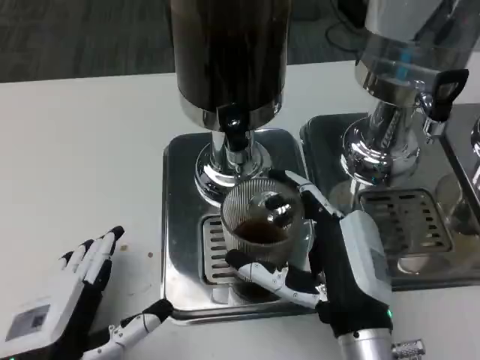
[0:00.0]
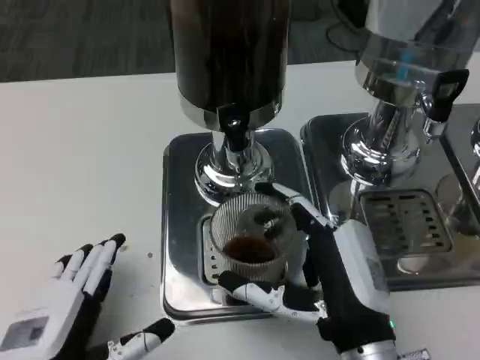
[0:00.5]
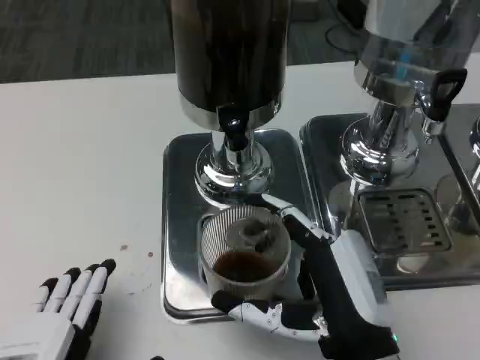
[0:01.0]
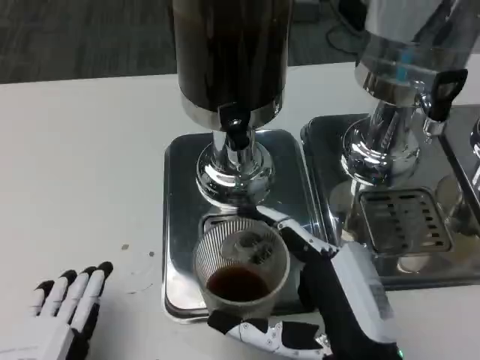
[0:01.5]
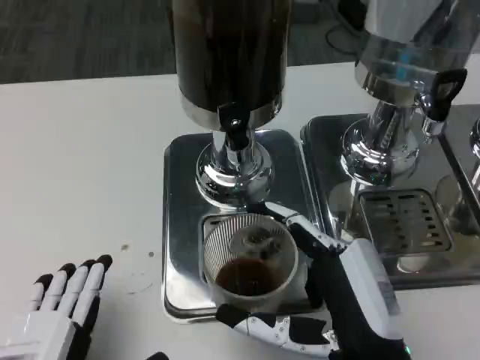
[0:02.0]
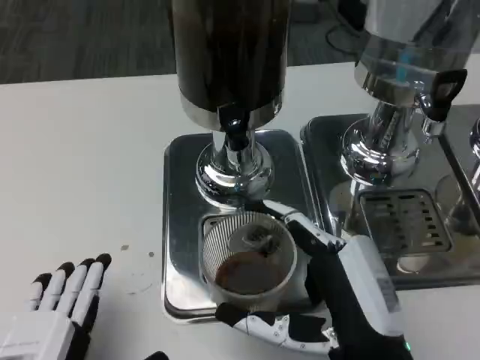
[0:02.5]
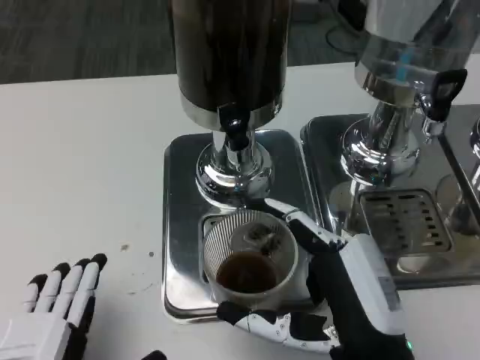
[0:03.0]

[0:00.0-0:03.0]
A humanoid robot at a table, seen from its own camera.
Task of the whole recording: Grasp the cup under the faucet to collect the drink, then remove the cup.
0:00.0 to 0:01.5: The left hand is displaced backward by roughly 5 cm.
0:01.5 to 0:03.0: Both hands stay about where they are.

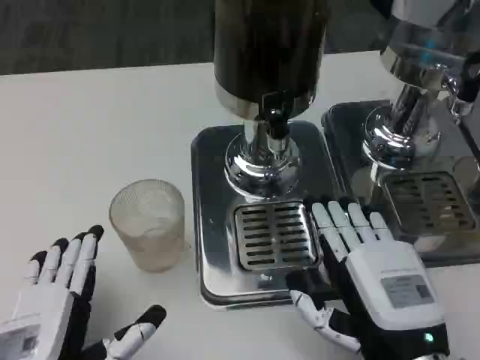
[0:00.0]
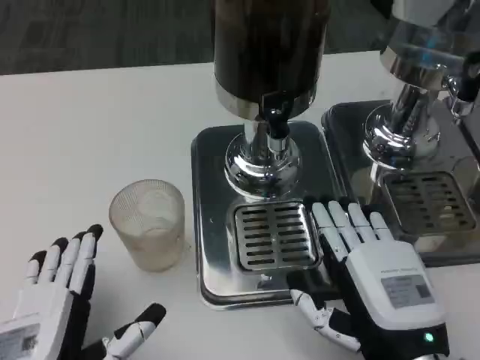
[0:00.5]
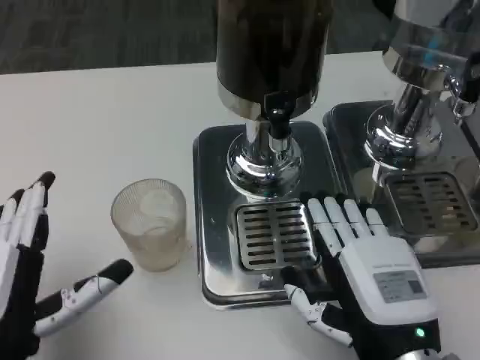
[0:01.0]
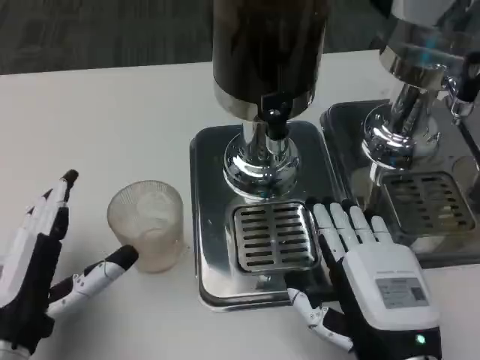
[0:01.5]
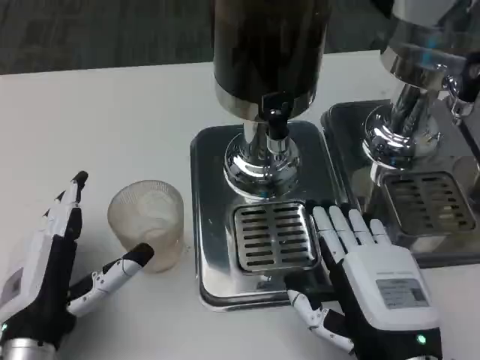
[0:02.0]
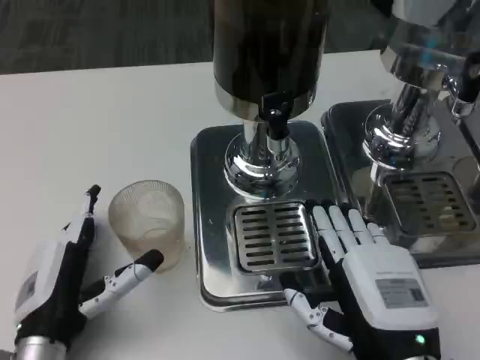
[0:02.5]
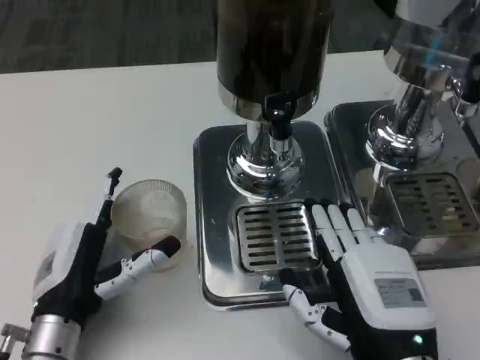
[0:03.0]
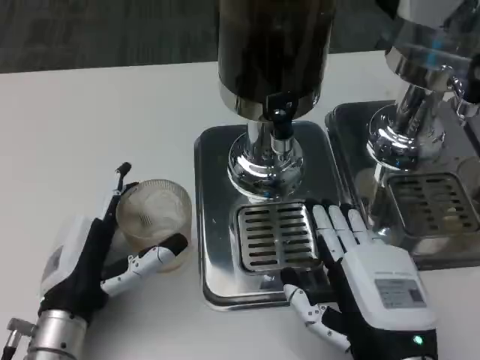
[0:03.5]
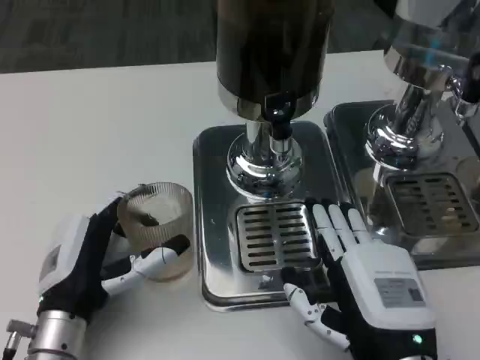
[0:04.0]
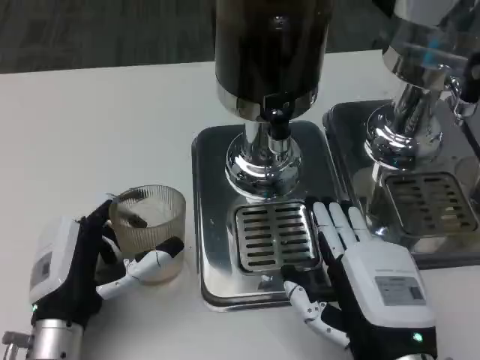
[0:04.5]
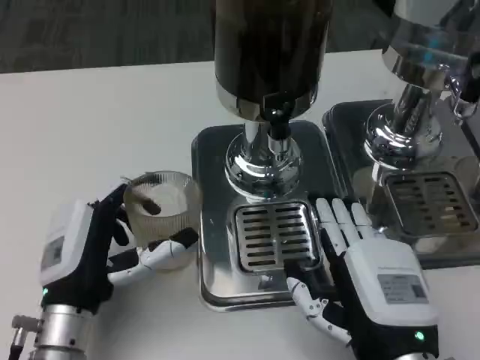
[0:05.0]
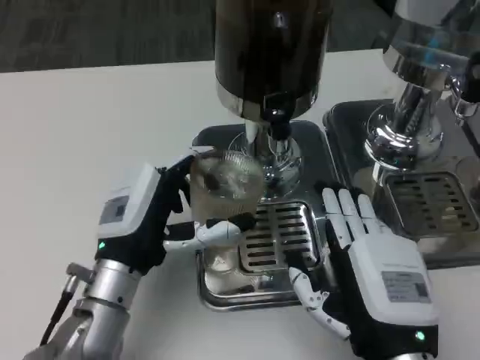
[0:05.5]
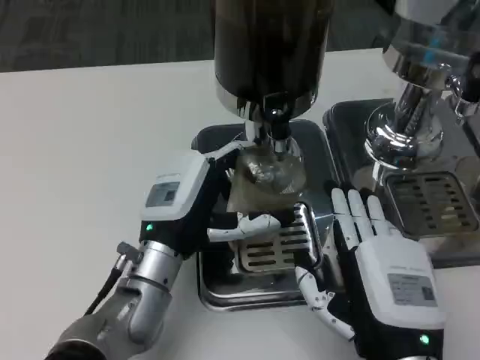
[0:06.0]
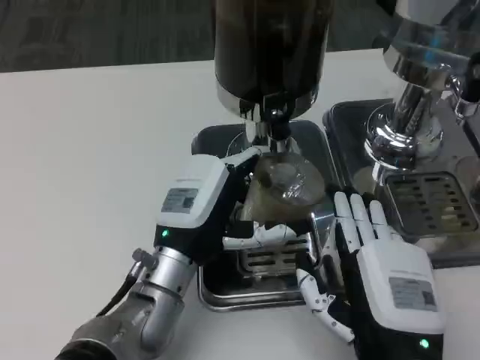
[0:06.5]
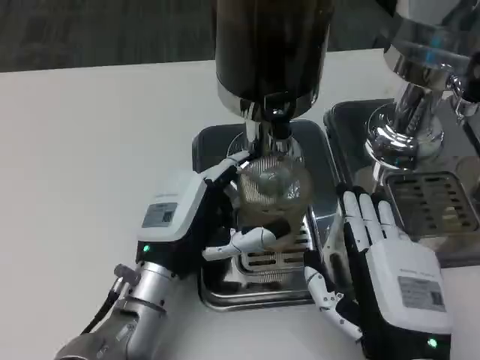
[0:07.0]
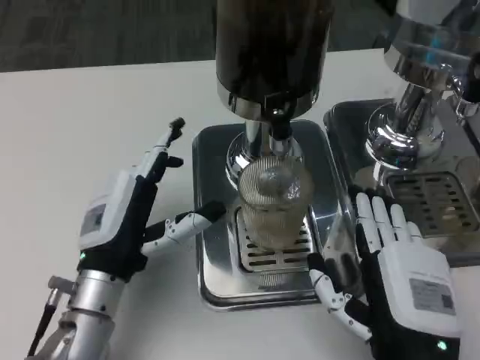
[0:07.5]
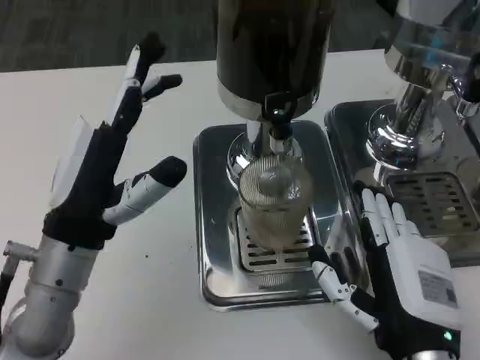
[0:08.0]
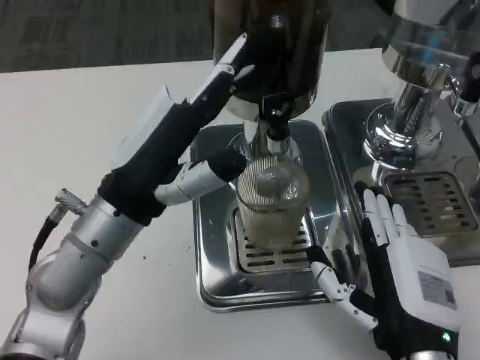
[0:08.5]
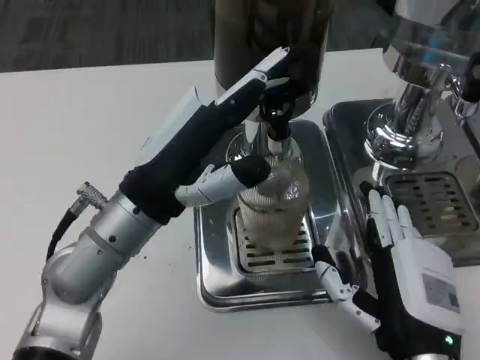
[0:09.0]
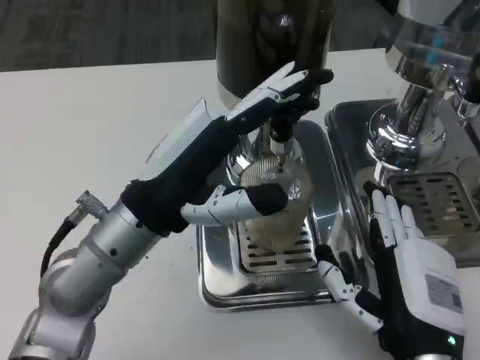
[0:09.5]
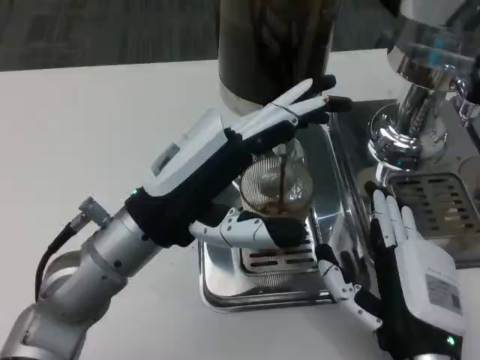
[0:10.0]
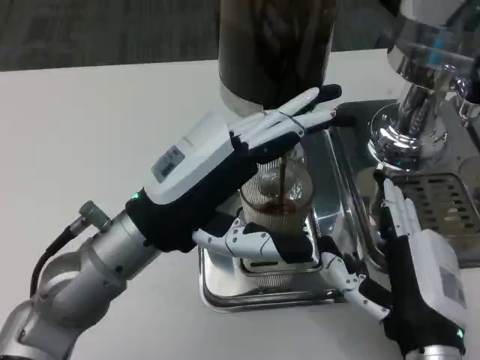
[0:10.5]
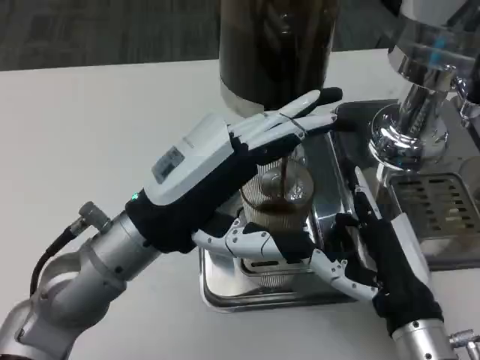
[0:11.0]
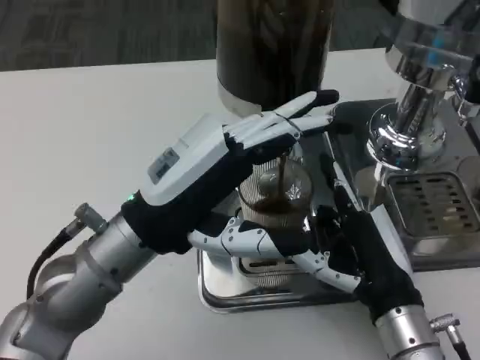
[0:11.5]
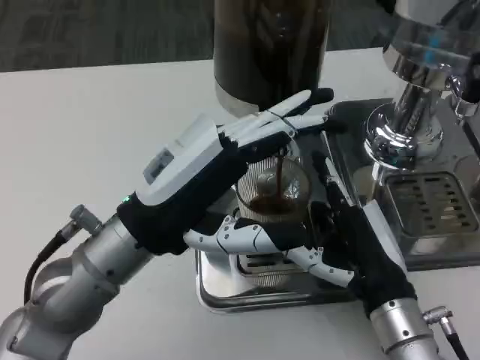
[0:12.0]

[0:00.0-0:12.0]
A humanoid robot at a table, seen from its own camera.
Task of the whole recording: Grasp the cup under the faucet to collect the drink, then remove the cup.
0:00.0 to 0:02.0: The left hand shifts approximately 5 cm forward.
0:04.0 to 0:06.0: The left hand moves to the right and forward, about 10 cm.
0:06.0 to 0:08.0: The left hand heads to the left and upward, covering some 10 cm.
0:10.0 to 0:12.0: The right hand heads forward, covering some 5 cm.

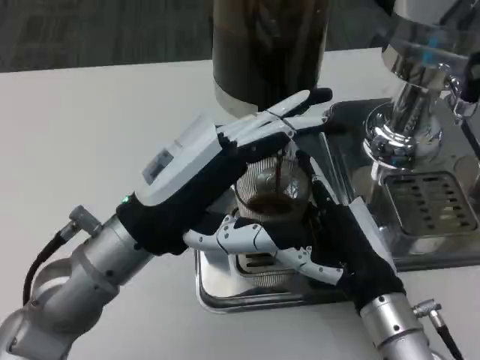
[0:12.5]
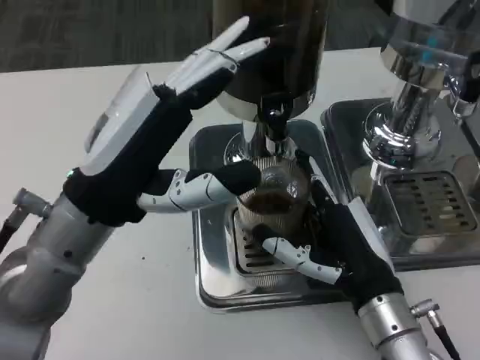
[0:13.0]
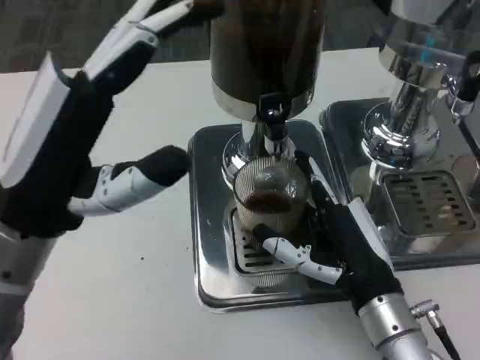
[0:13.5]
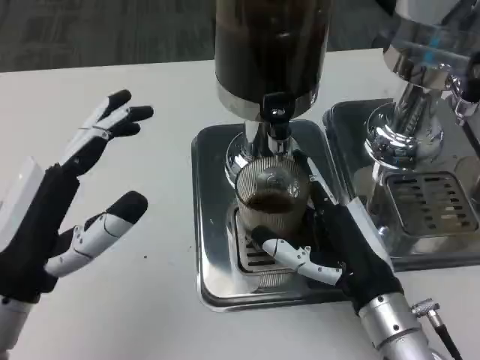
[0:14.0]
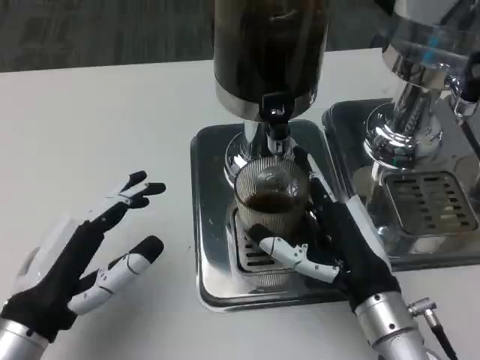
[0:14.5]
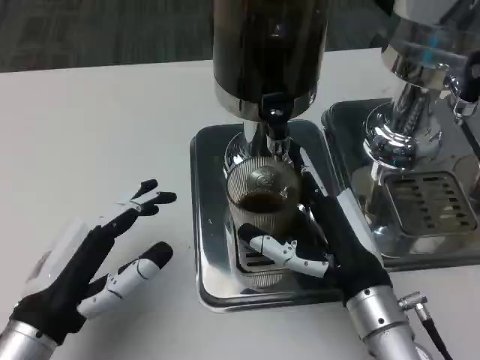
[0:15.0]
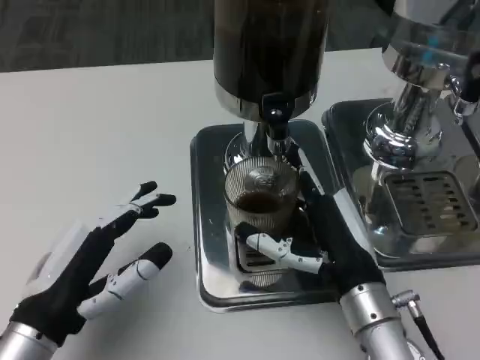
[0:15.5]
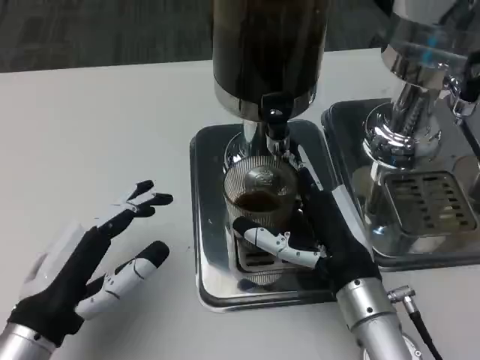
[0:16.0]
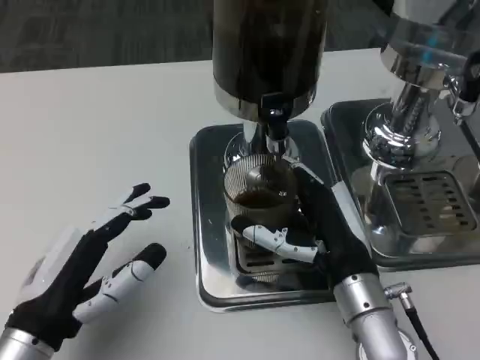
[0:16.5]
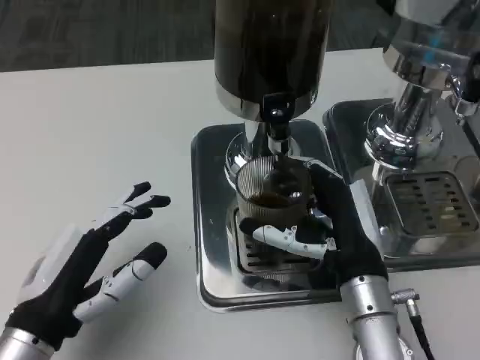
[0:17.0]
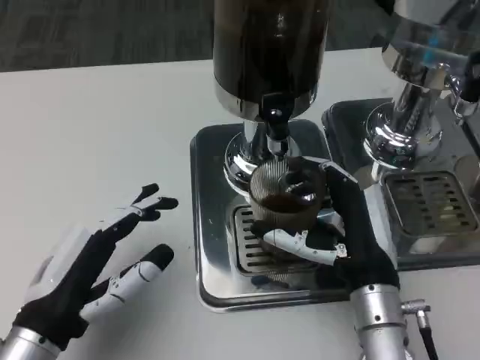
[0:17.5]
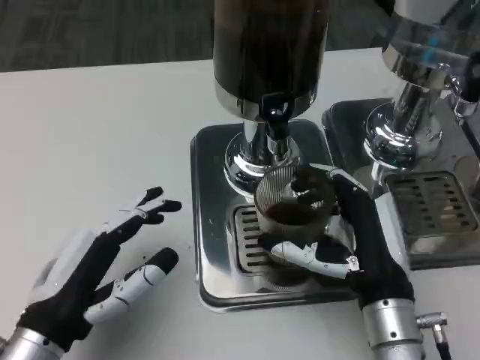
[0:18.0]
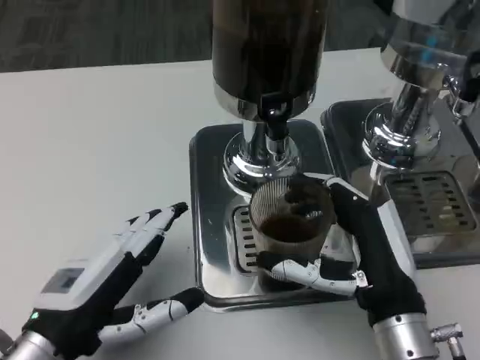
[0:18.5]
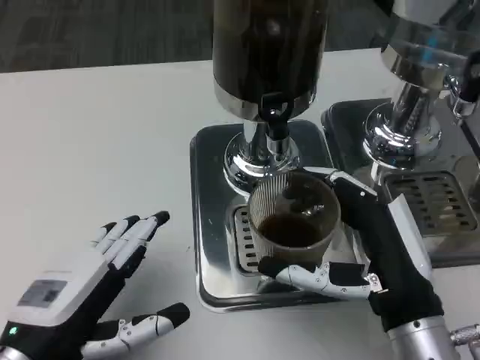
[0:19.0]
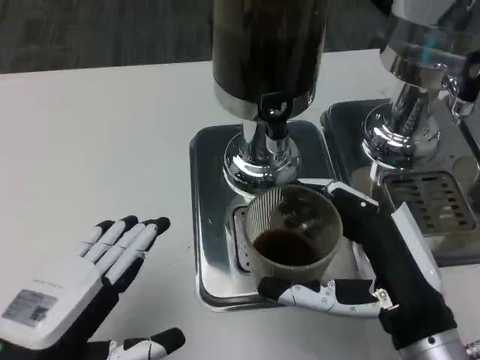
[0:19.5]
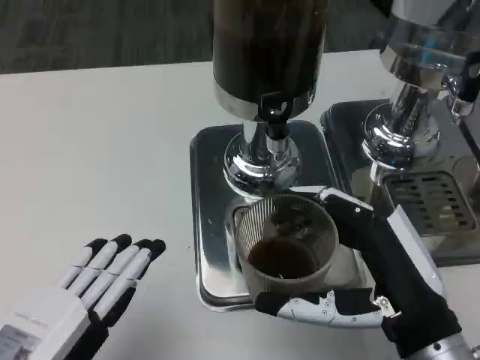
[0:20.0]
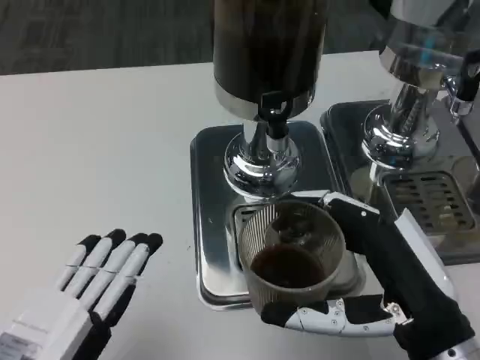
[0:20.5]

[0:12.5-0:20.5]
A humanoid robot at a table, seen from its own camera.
Task of the whole recording: Grasp the cup under the faucet to collect the drink, then remove the cup.
0:12.5 to 0:14.5: The left hand shifts about 15 cm to the left, backward and downward.
0:14.5 to 0:16.5: The hands move only a little.
0:16.5 to 0:18.5: The right hand shifts by roughly 5 cm.
0:18.5 to 0:20.5: The left hand is displaced backward by some 10 cm, while the right hand travels upward by about 5 cm.

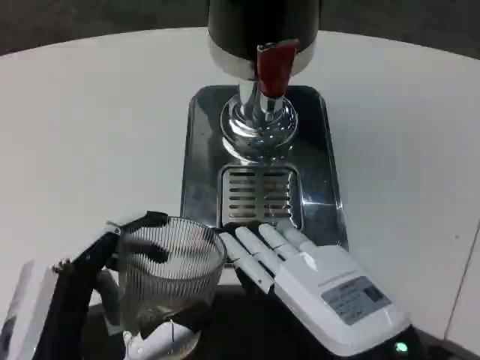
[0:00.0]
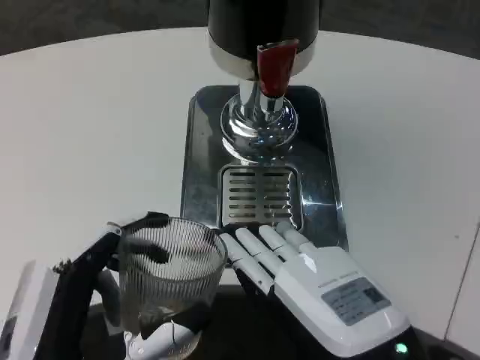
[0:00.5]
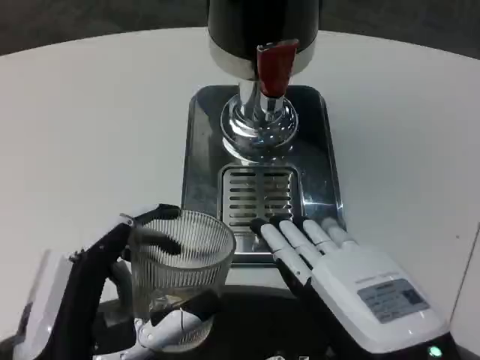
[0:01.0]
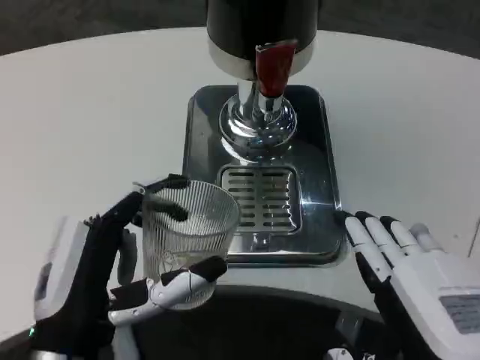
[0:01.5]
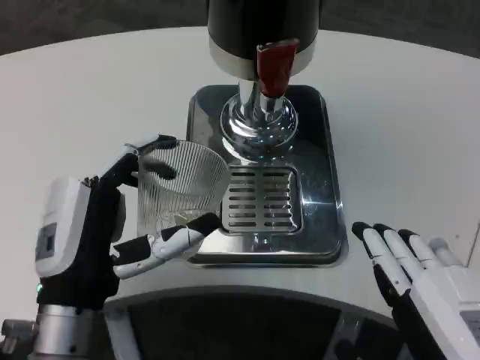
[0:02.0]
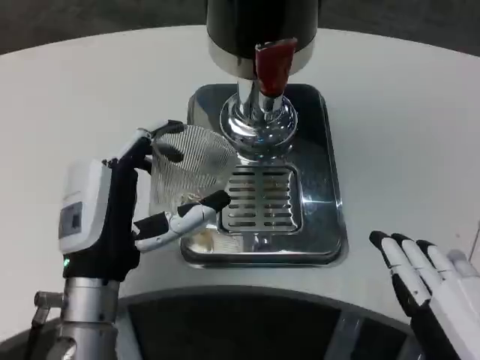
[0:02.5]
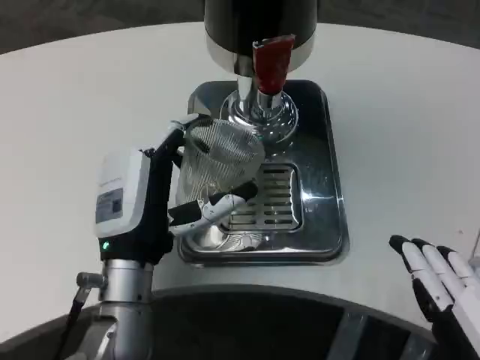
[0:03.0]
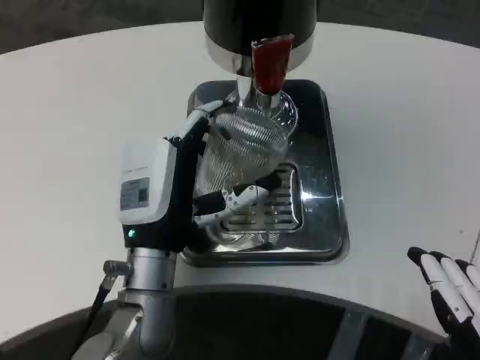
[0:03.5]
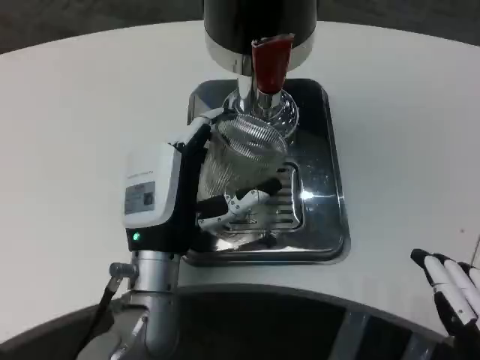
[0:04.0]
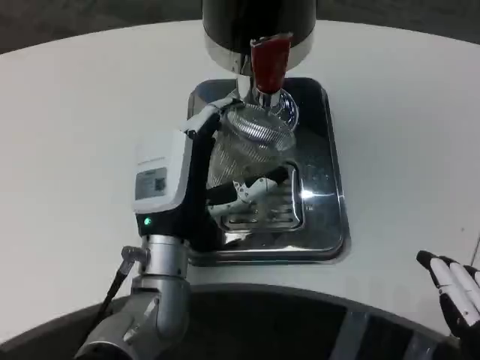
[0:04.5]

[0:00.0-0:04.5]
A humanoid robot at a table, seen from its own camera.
Task of the whole recording: Grasp the cup under the faucet to collect the drink, then remove the cup.
0:00.0 to 0:02.0: The right hand is displaced backward by approximately 5 cm. Meanwhile the left hand goes roughly 10 cm forward.
0:02.0 to 0:04.5: The left hand shifts approximately 10 cm forward and to the right.
